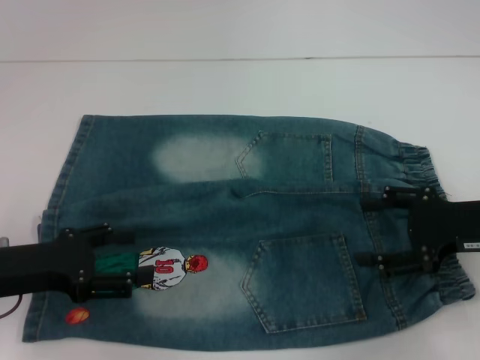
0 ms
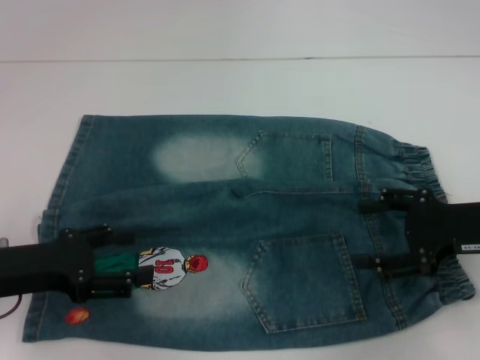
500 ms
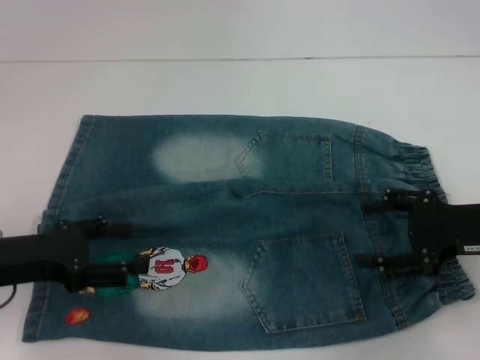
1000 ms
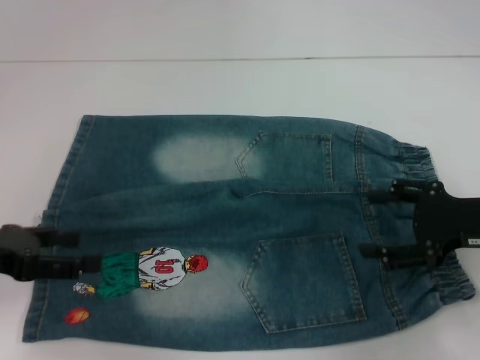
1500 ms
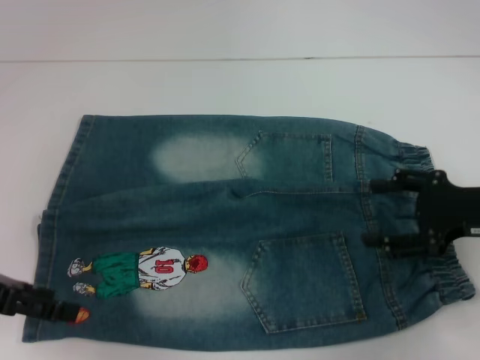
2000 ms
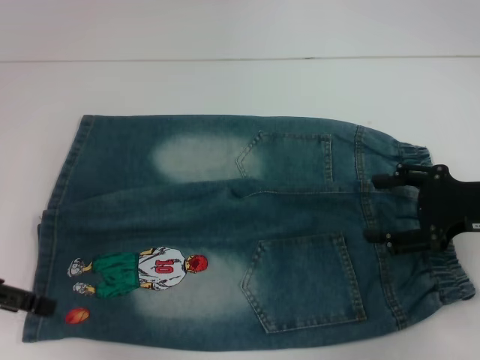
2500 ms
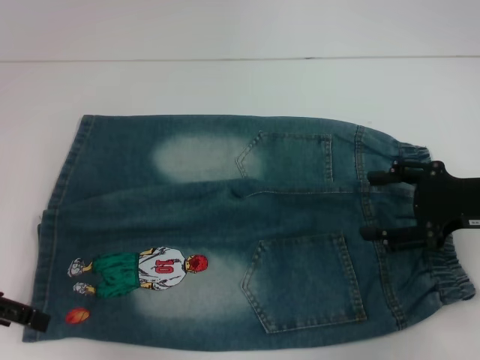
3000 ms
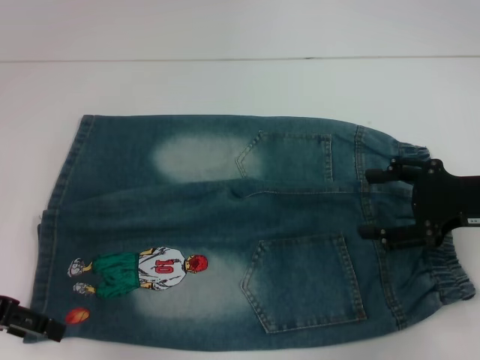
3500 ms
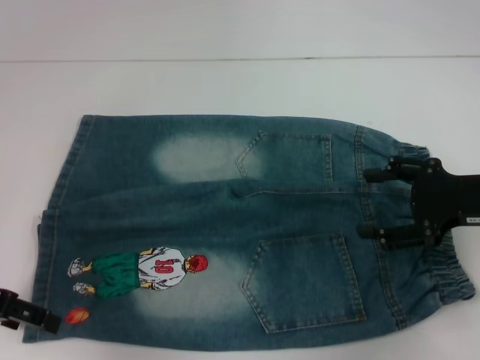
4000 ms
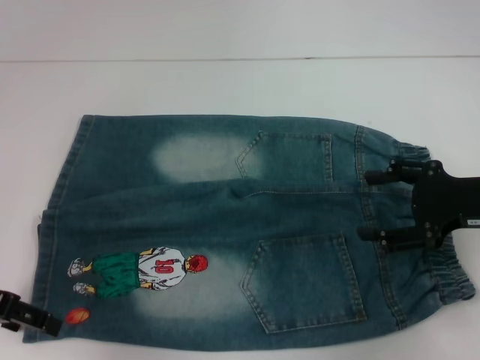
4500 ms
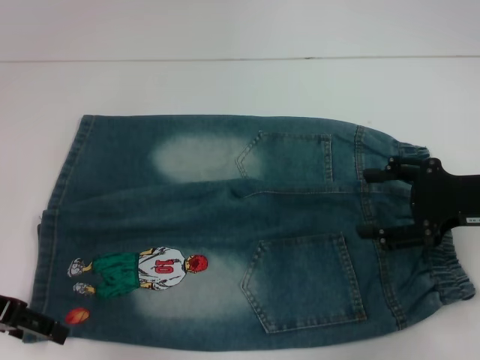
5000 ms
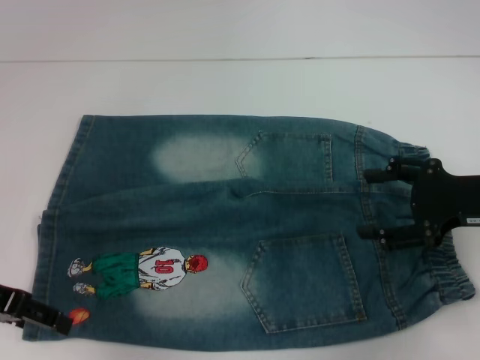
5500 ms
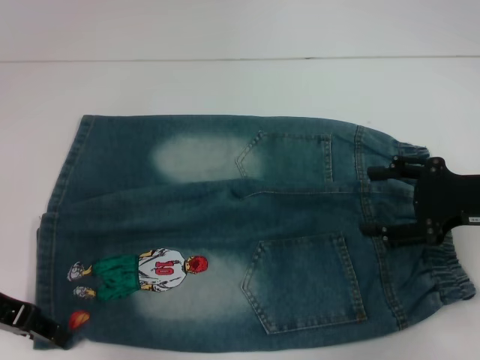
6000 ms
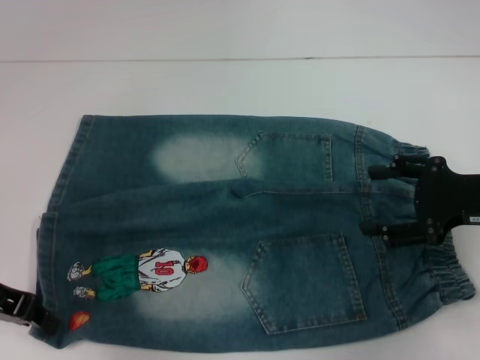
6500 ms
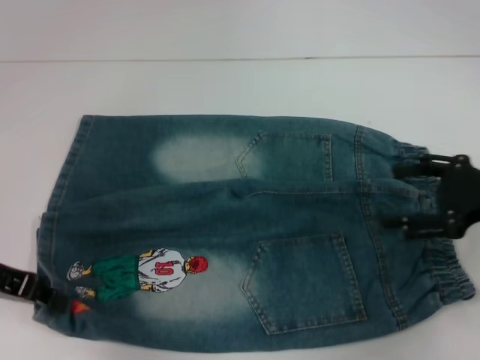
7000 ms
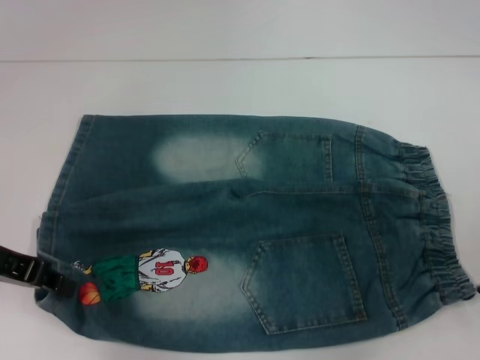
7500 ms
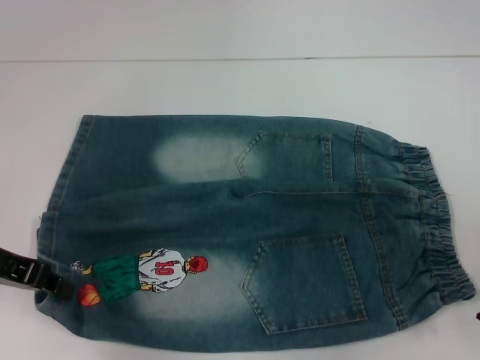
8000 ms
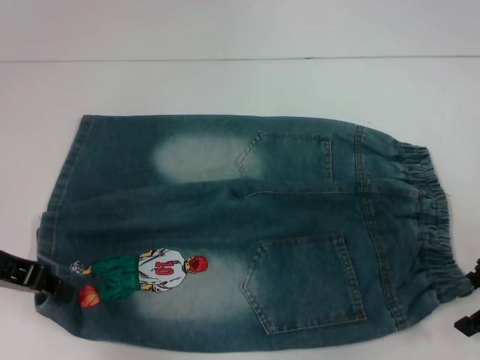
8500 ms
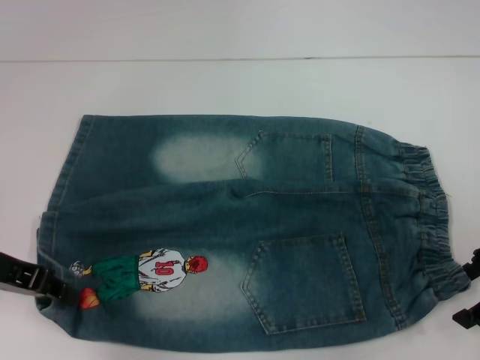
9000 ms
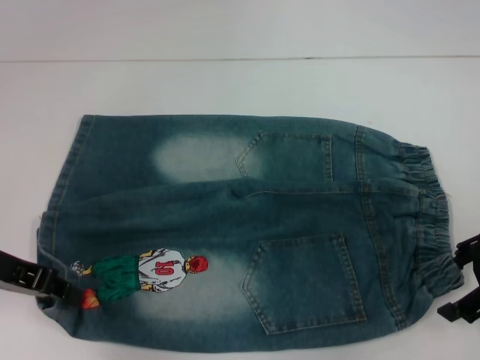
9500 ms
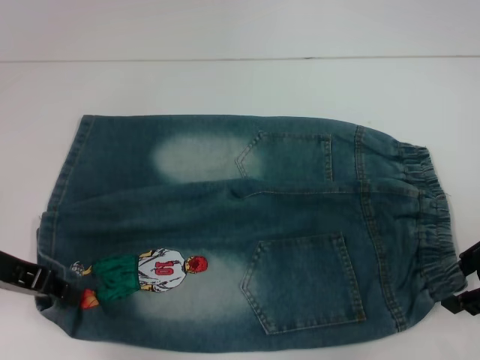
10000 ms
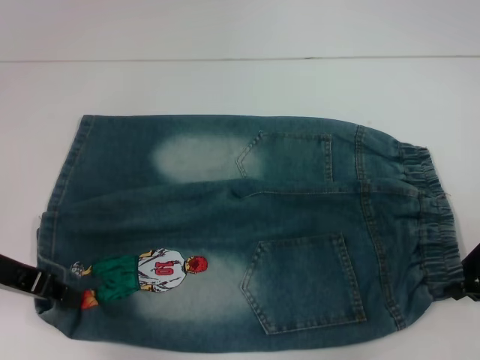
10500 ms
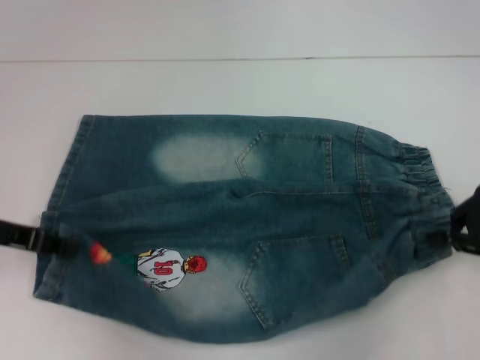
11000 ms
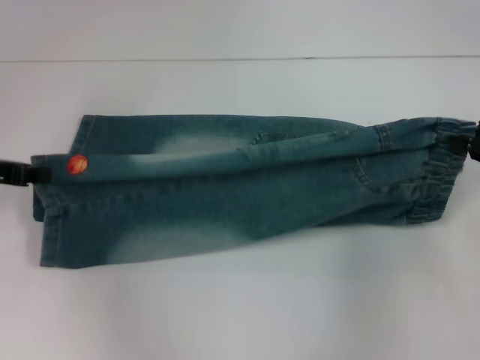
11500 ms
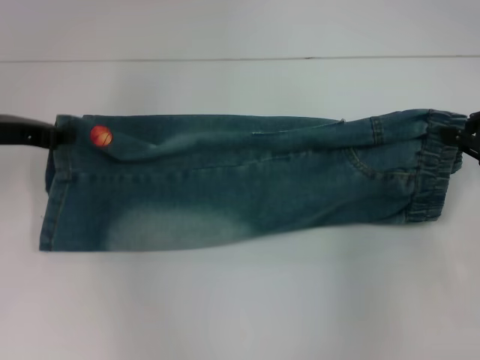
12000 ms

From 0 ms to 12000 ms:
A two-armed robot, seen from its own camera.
Step, from 0 ms to 6000 ms: Grab the lower left pant leg with your left hand.
Step, from 6500 ms to 10500 ms: Hold the lower right waistband with your right hand.
From 0 ms to 2000 ms: The left gripper shifts by about 5 cm.
From 4000 ms to 6000 ms: There are only small adjustments of the grippers.
From 6000 ms to 8000 ms: The right gripper changes place by roughly 5 cm, while the left gripper closes up.
From 8000 ms to 10000 ms: The grippers move only a little.
From 10000 ms to 12000 ms: The left gripper is displaced forward by about 10 cm, while the right gripper moves about 5 cm, and closes its fingers.

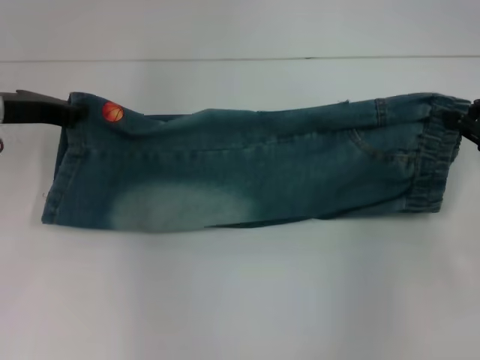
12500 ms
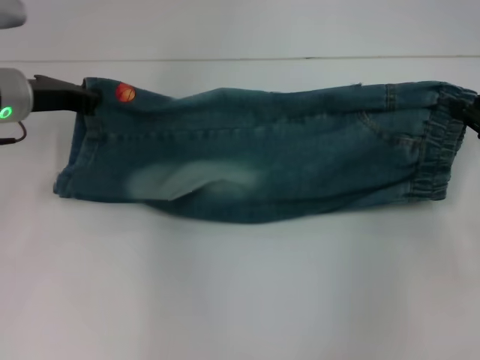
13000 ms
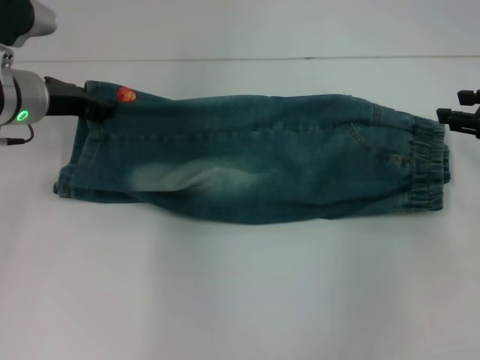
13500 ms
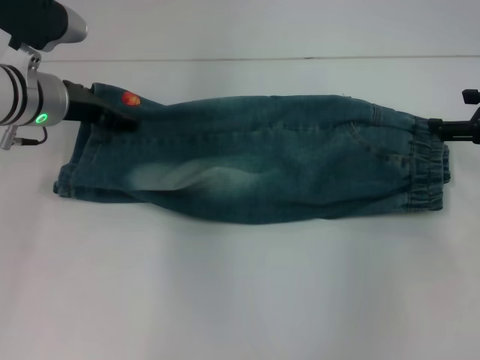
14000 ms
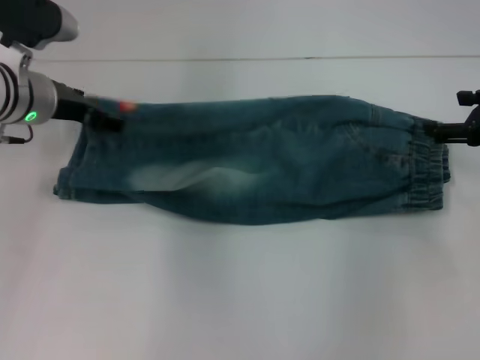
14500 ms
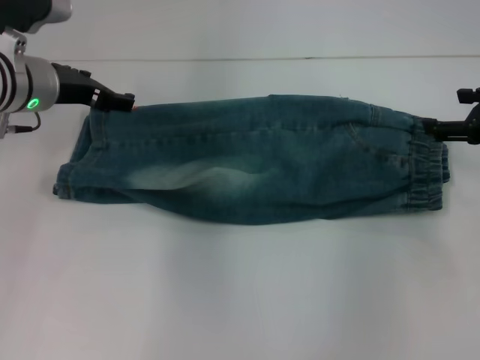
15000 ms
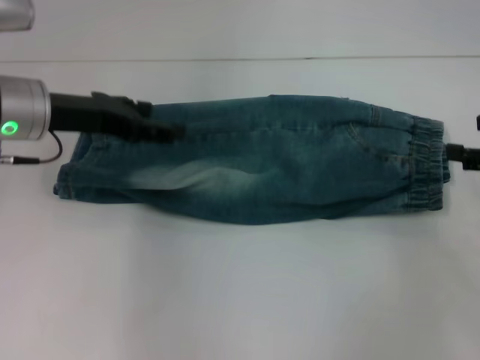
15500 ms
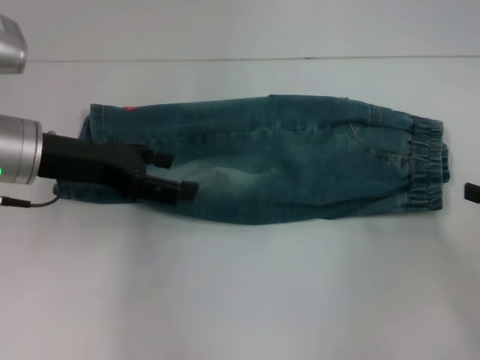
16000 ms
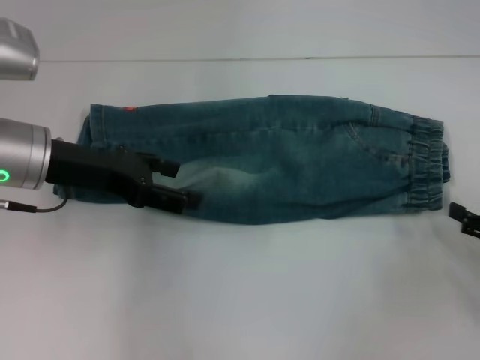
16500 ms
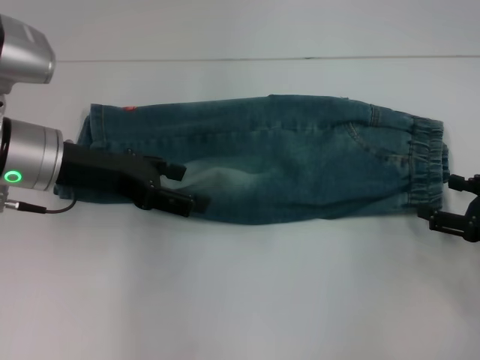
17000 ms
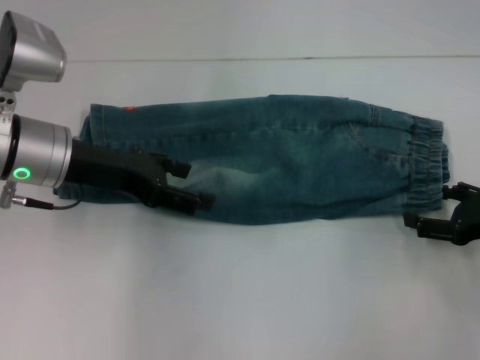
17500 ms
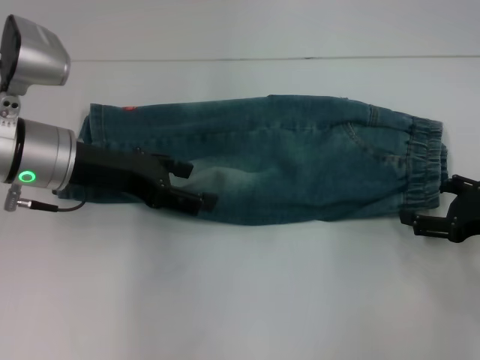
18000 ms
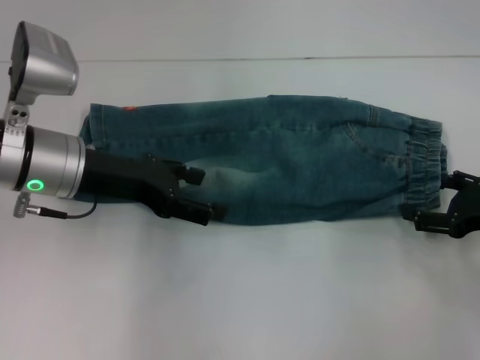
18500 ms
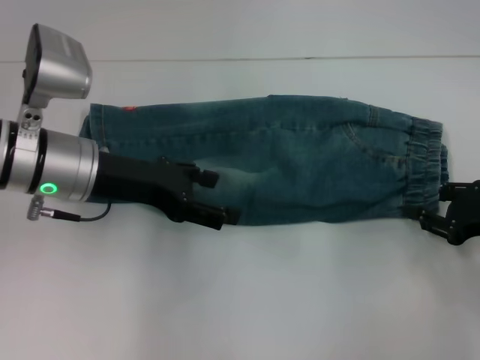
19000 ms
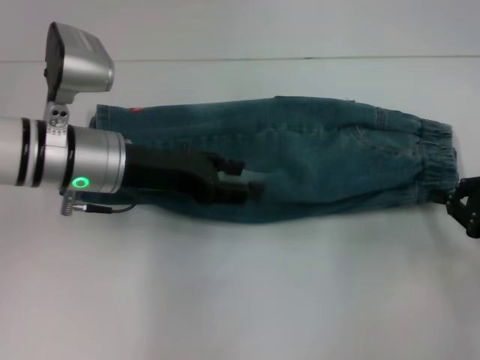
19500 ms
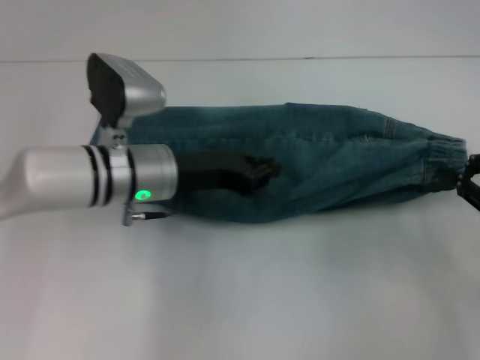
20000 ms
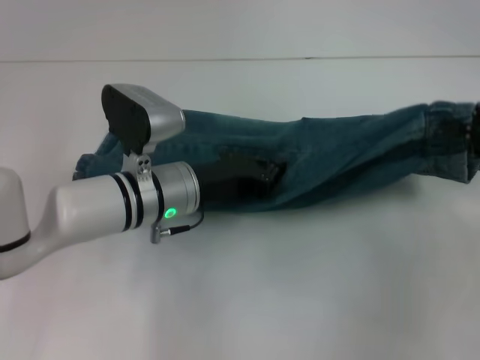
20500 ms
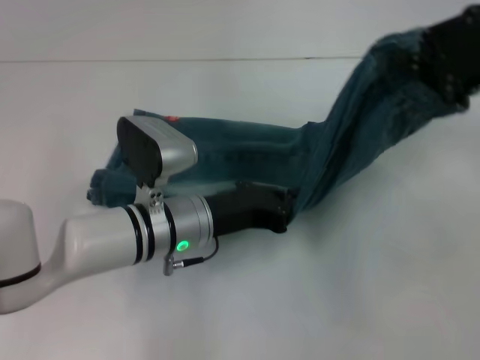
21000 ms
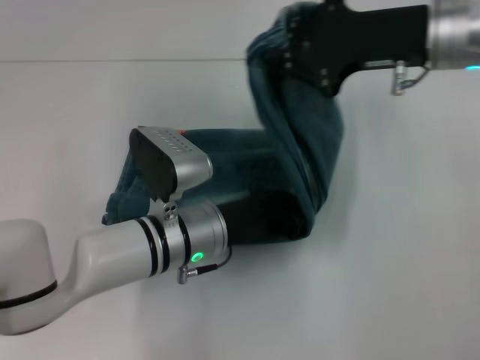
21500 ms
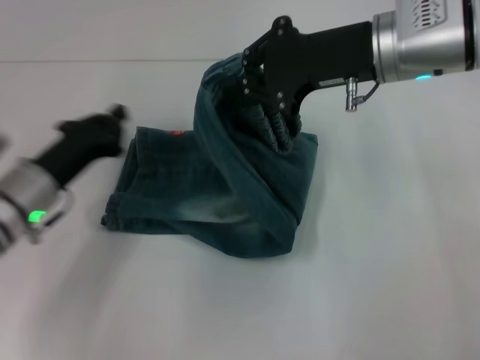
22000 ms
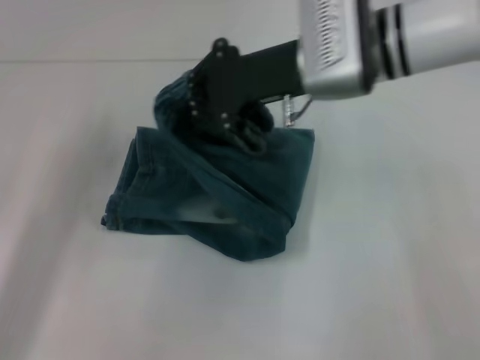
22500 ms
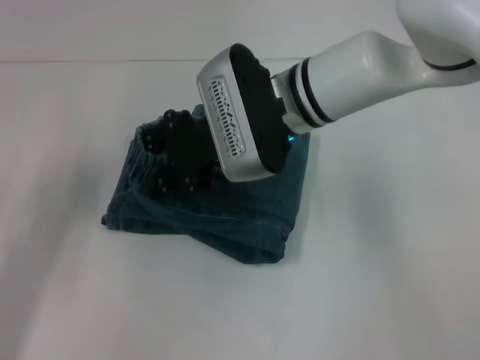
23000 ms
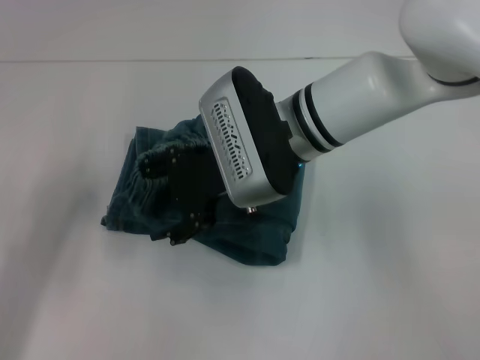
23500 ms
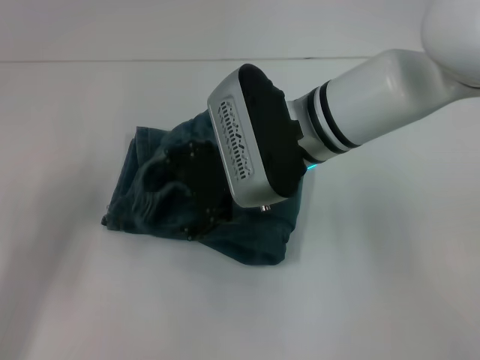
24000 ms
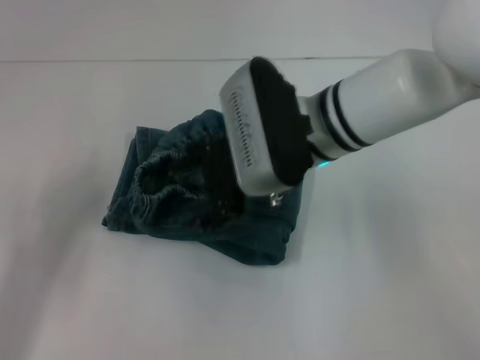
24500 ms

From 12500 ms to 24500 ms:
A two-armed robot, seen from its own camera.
Step, from 12500 ms to 15000 ms: Fold upward with your right hand.
Step, from 15500 ms to 19500 ms: Grab the waistband with your right hand.
Step, from 20000 ms to 21500 ms: Press the middle of the pants with your left hand.
From 12500 ms to 14500 ms: The left gripper travels to the right by roughly 5 cm, and opens up. The right gripper opens its fingers.
From 14500 ms to 16500 ms: The left gripper goes about 10 cm backward; the right gripper heads backward and downward, covering some 15 cm.
From 16500 ms to 18500 ms: The right gripper goes approximately 5 cm forward.
From 18500 ms to 20500 ms: The right gripper moves upward, some 10 cm, and closes its fingers. The left gripper moves to the right and downward, roughly 15 cm, and closes its fingers.
From 20500 ms to 22500 ms: The right gripper goes roughly 25 cm to the left and forward; the left gripper is displaced to the left by approximately 25 cm.
From 22500 ms to 24500 ms: The right gripper changes place by about 5 cm, and opens its fingers.

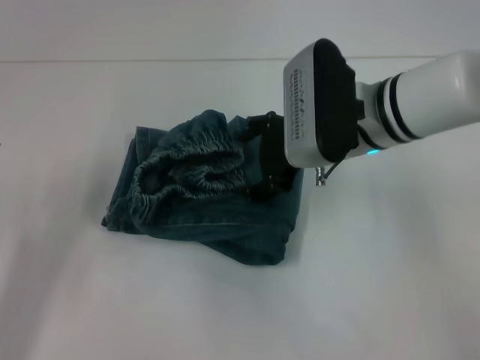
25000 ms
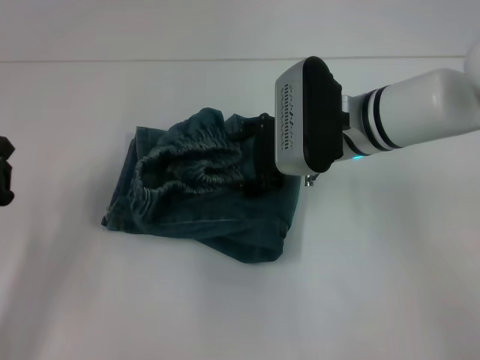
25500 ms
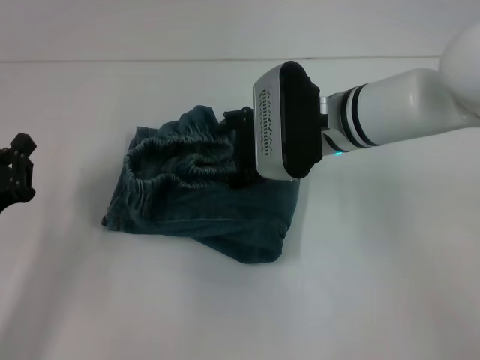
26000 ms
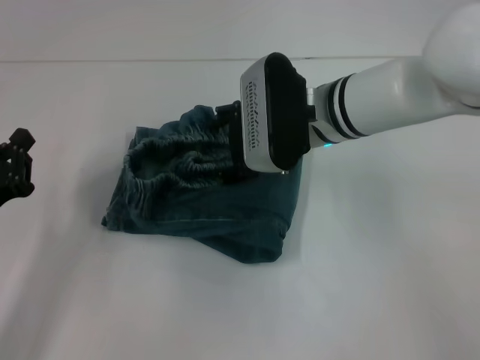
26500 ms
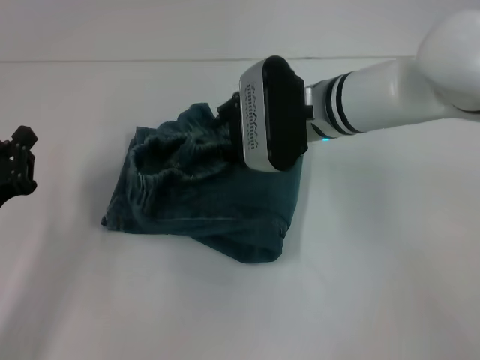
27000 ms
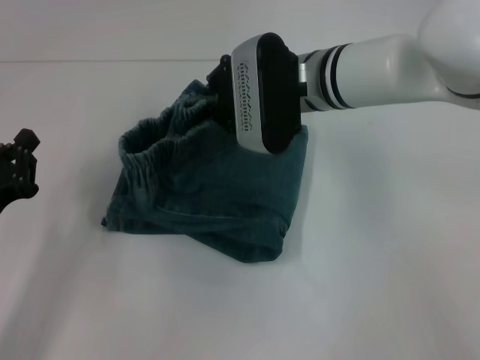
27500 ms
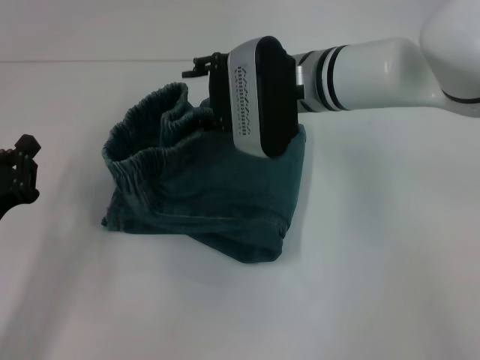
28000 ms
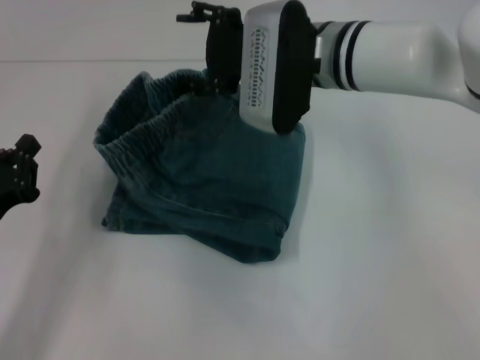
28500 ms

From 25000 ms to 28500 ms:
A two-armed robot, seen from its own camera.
From 25000 ms to 27000 ms: The right gripper shifts by approximately 5 cm, and closes up.
From 27000 ms to 28500 ms: The right gripper goes approximately 5 cm upward, and opens up.
